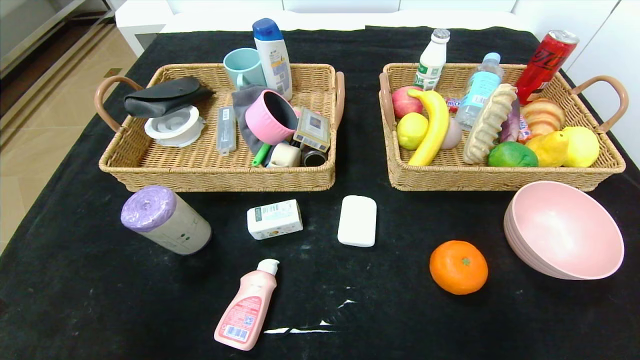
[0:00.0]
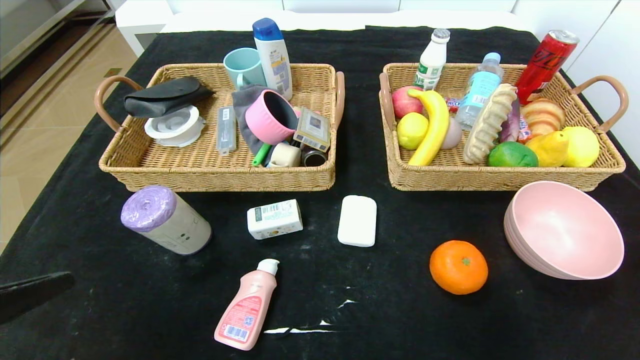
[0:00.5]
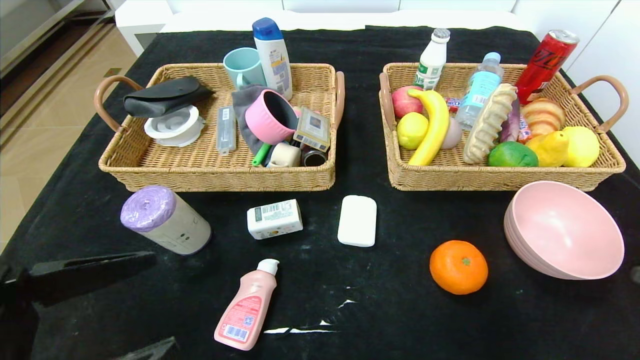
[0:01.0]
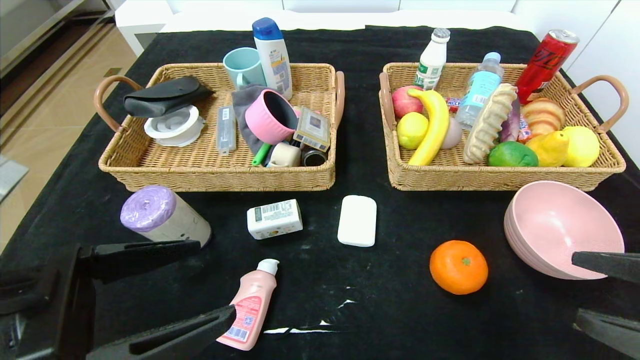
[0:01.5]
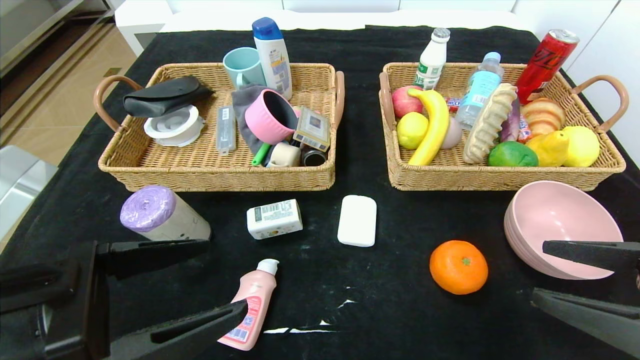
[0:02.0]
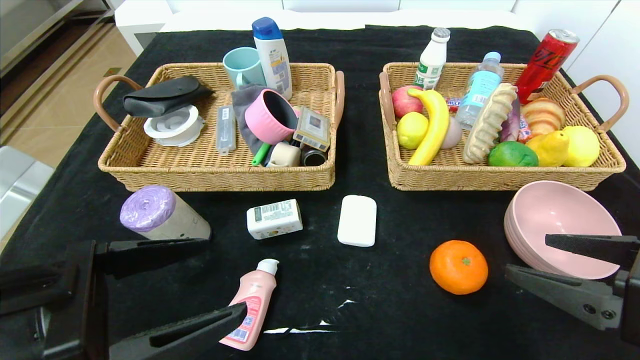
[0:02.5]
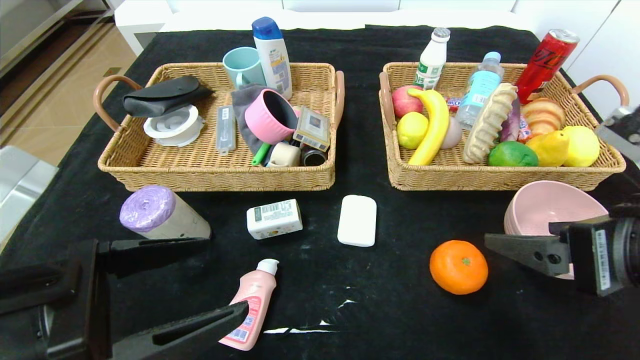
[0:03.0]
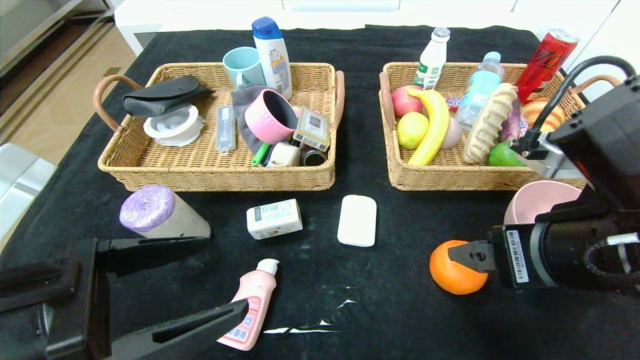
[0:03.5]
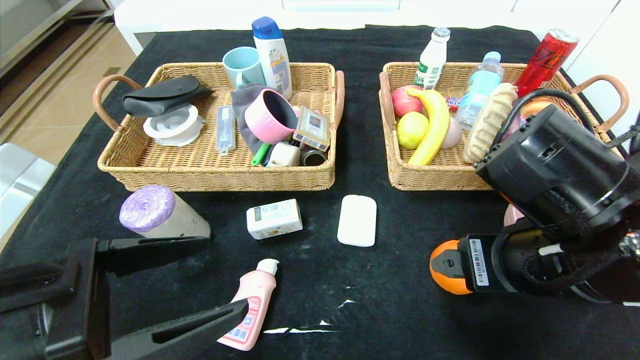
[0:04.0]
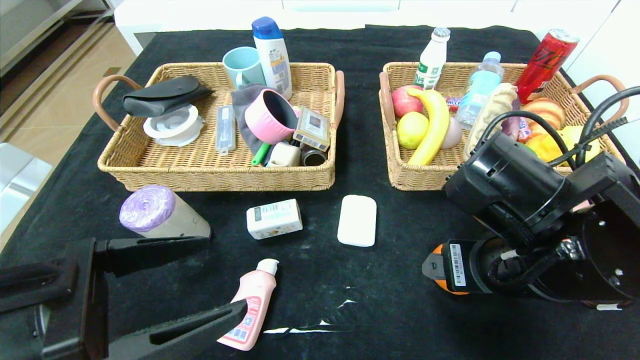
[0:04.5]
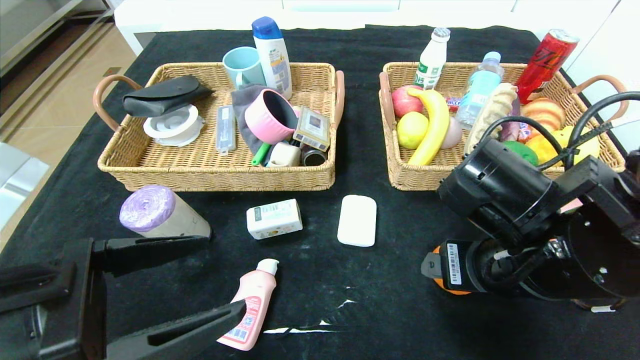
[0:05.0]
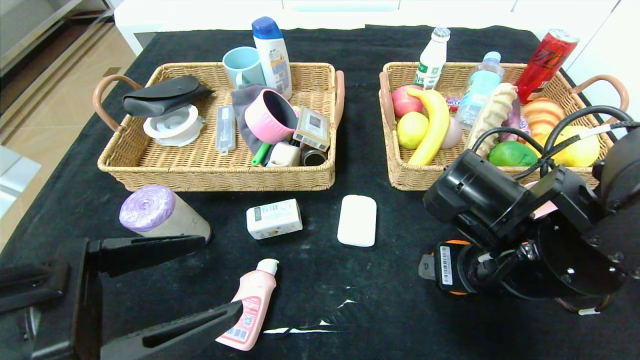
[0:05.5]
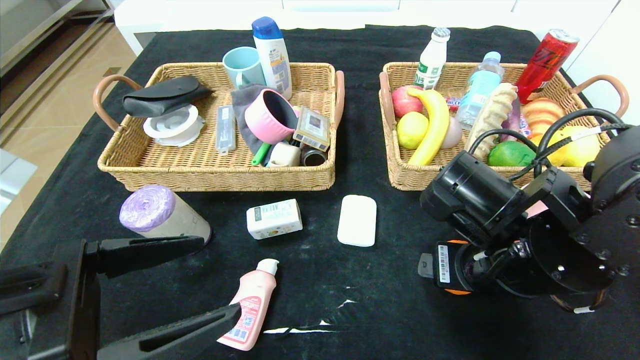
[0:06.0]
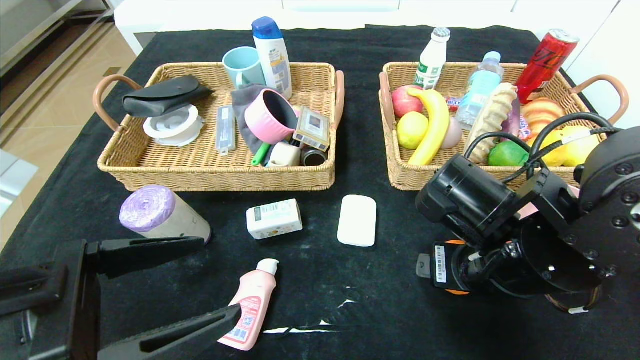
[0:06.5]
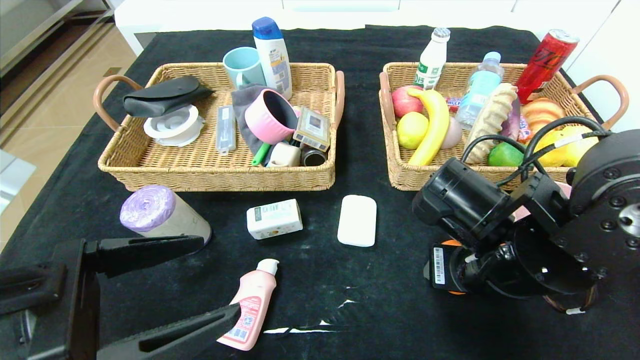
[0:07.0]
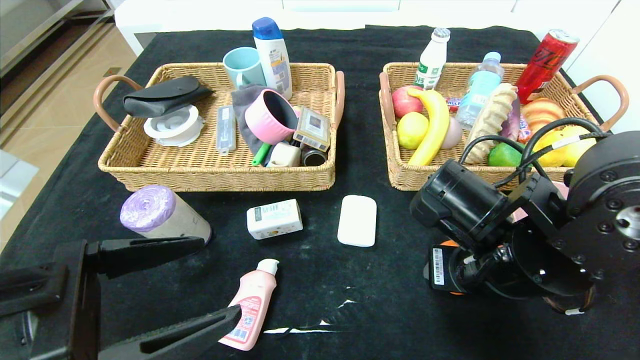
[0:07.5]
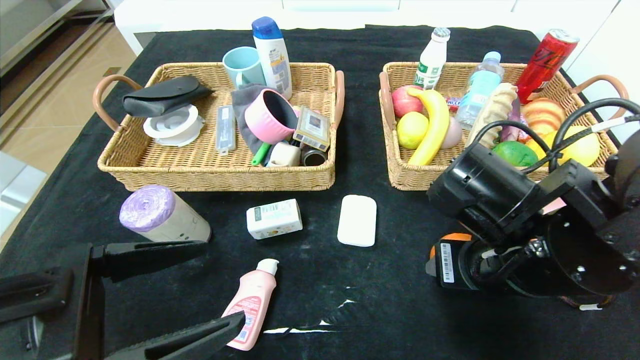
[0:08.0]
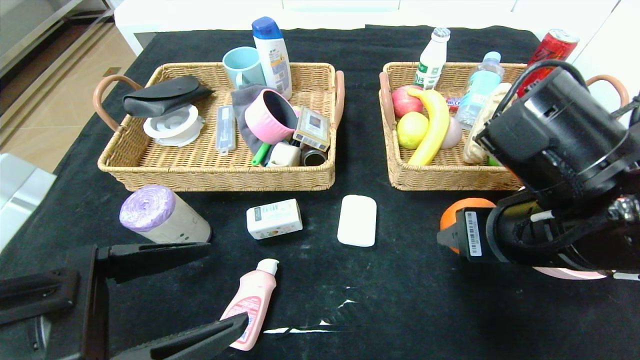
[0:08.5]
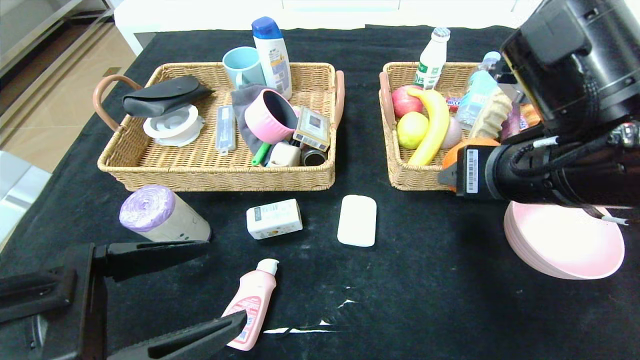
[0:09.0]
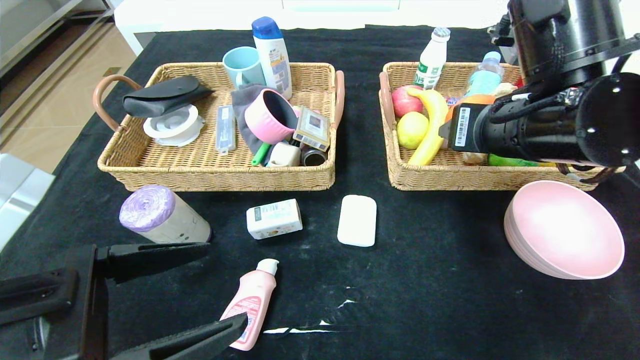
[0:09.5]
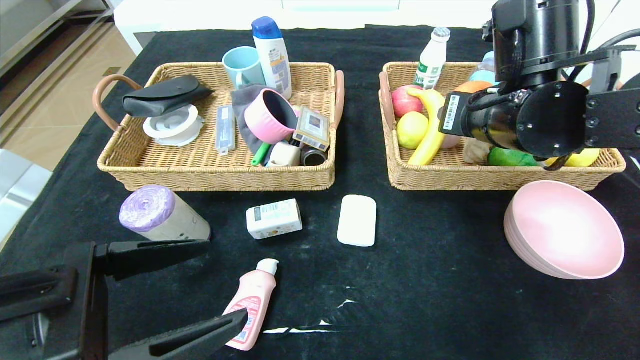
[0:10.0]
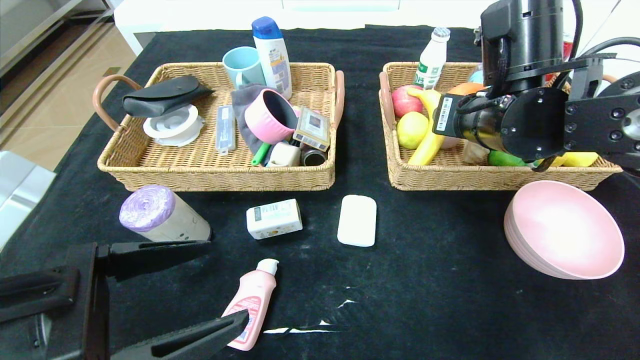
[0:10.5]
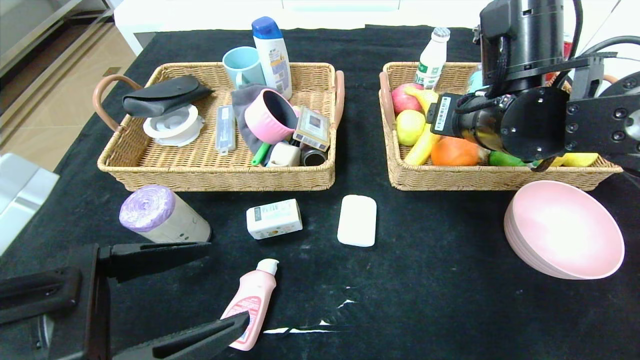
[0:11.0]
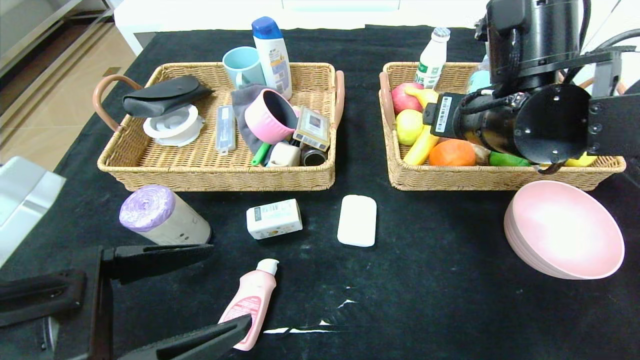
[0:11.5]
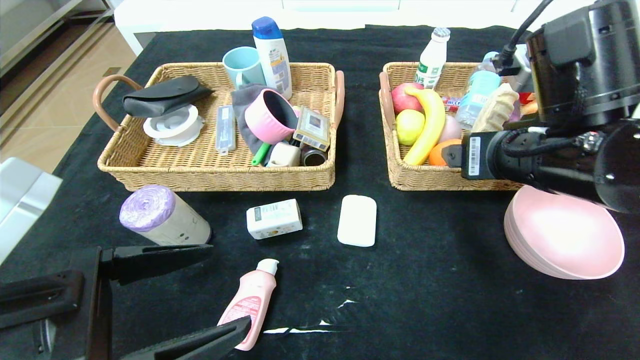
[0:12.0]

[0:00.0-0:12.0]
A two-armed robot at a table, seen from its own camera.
Step, 0:00.0 to 0:11.0: Grasp the orange and put it in the right basket.
0:00.0 to 0:02.0: The right gripper moves forward and to the left, some 15 cm, while the left gripper shifts about 10 cm forward and to the right.
0:02.0 to 0:04.0: The right gripper shifts roughly 15 cm to the left and forward.
0:04.0 to 0:06.0: The right gripper changes place by roughly 5 cm.
0:06.0 to 0:08.0: The grippers make only small movements.
0:08.0 to 0:10.0: The right gripper heads forward and upward, covering some 15 cm.
0:10.0 to 0:12.0: The right gripper heads backward, covering roughly 5 cm.

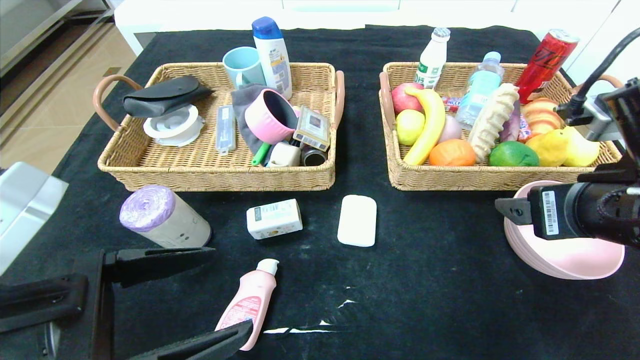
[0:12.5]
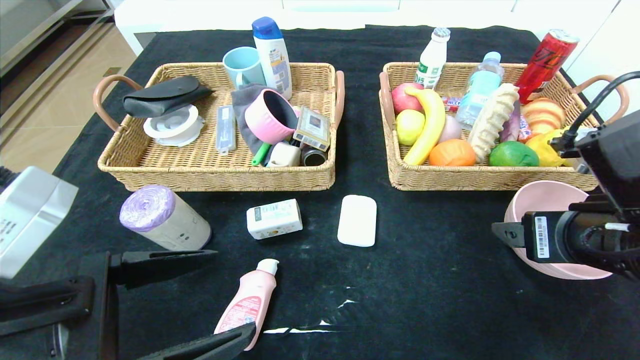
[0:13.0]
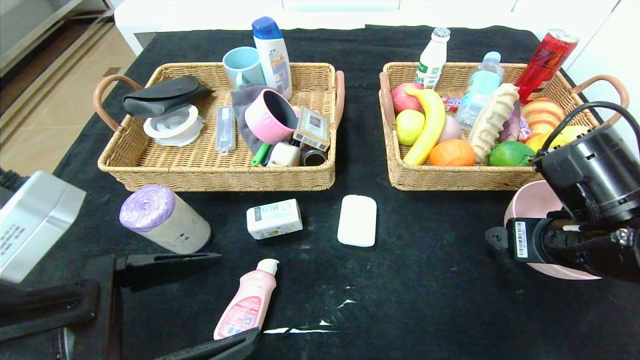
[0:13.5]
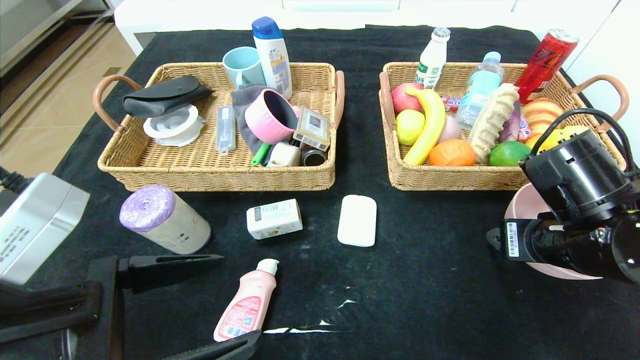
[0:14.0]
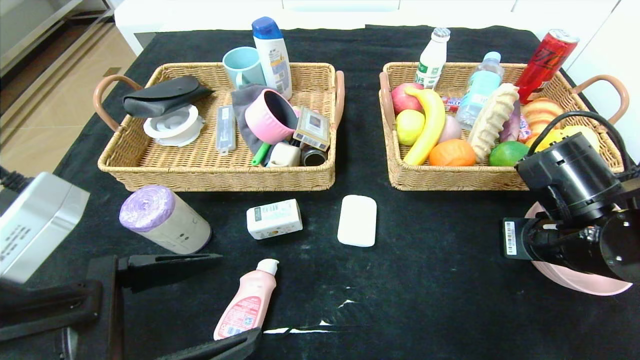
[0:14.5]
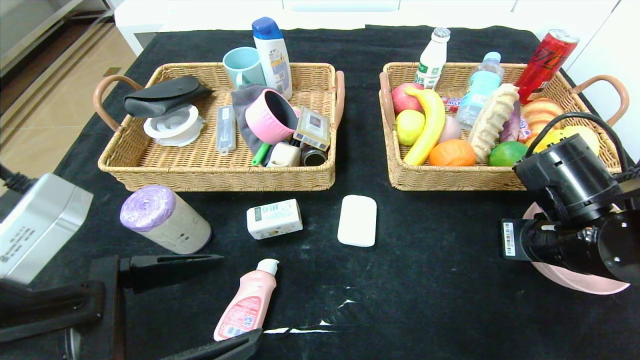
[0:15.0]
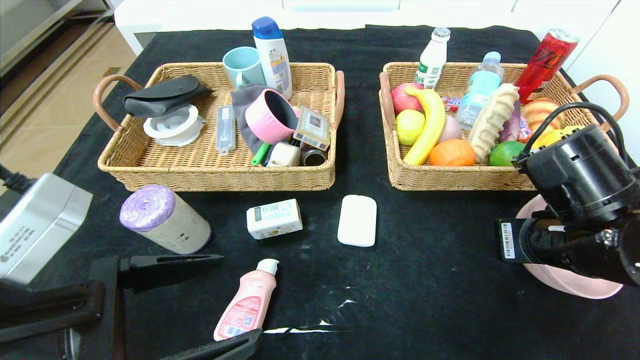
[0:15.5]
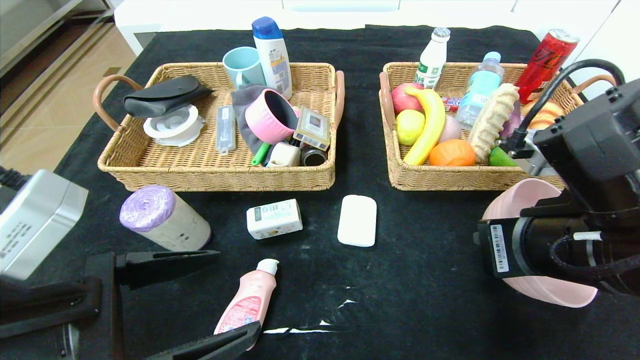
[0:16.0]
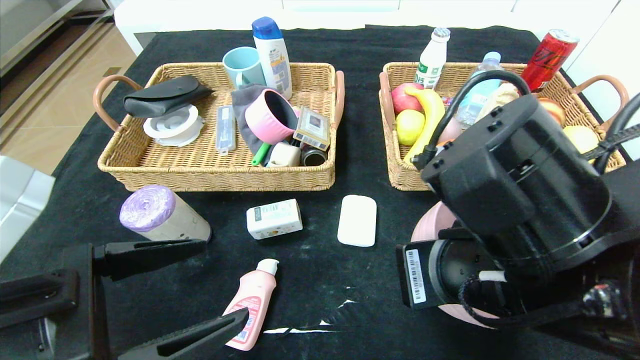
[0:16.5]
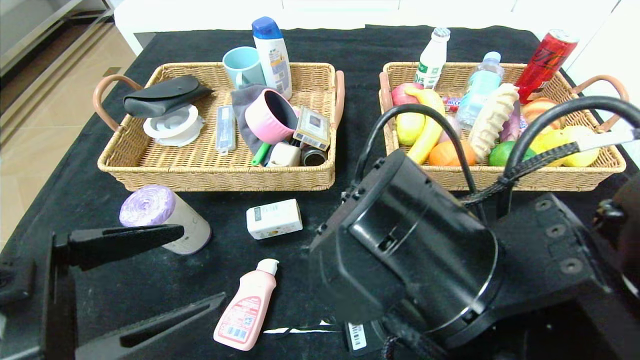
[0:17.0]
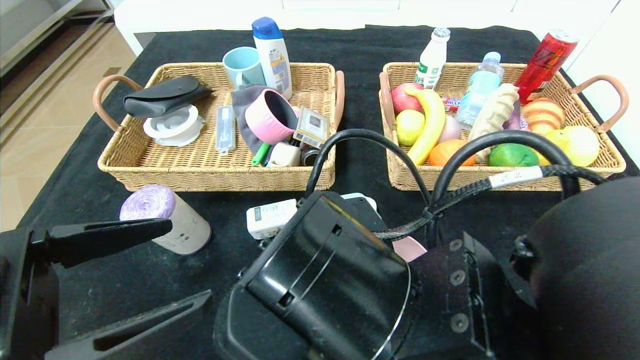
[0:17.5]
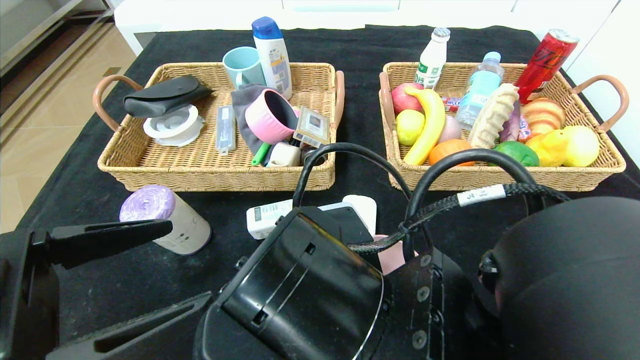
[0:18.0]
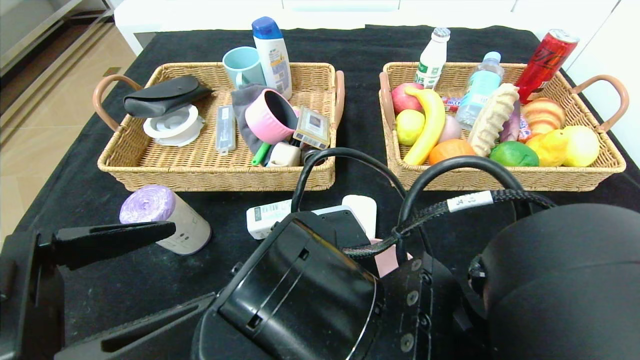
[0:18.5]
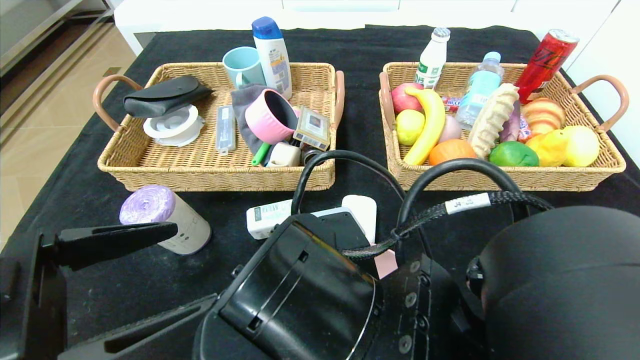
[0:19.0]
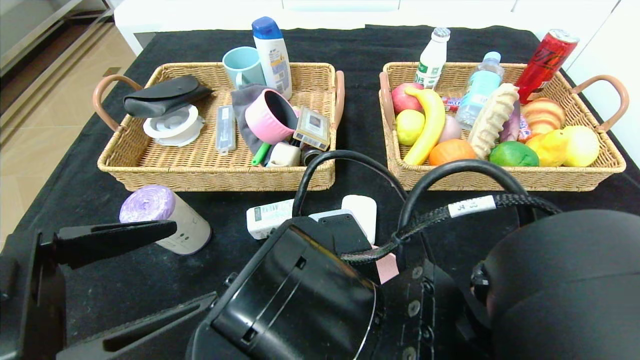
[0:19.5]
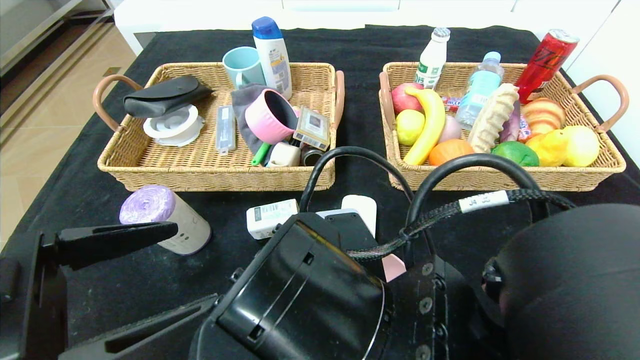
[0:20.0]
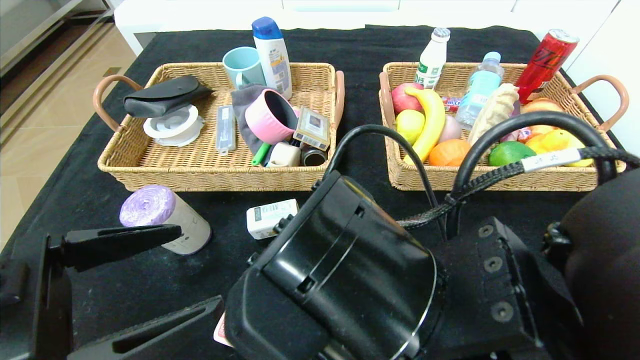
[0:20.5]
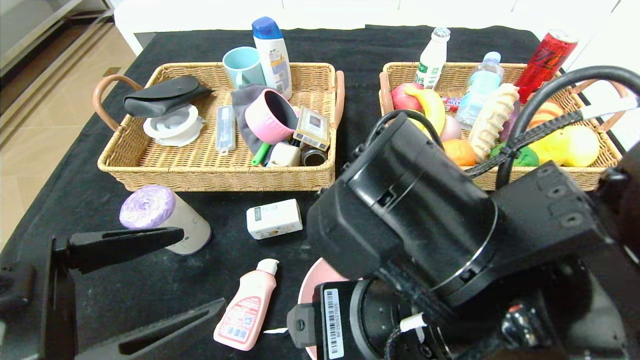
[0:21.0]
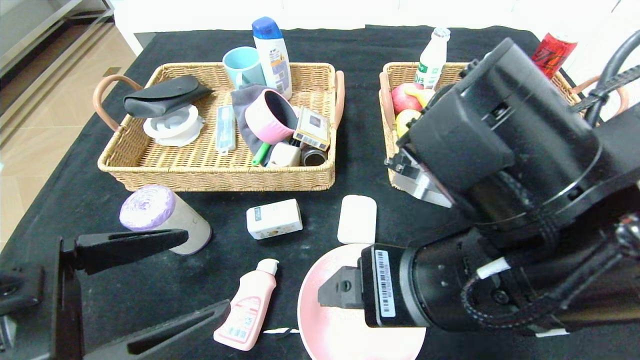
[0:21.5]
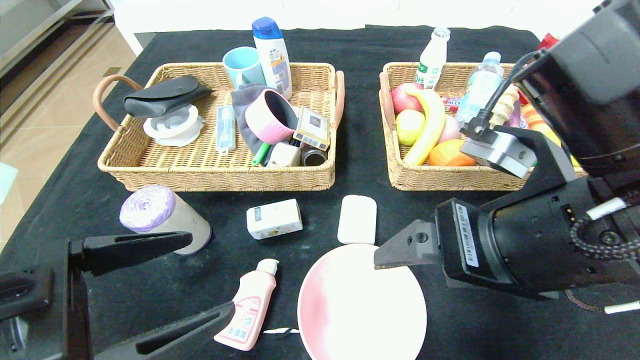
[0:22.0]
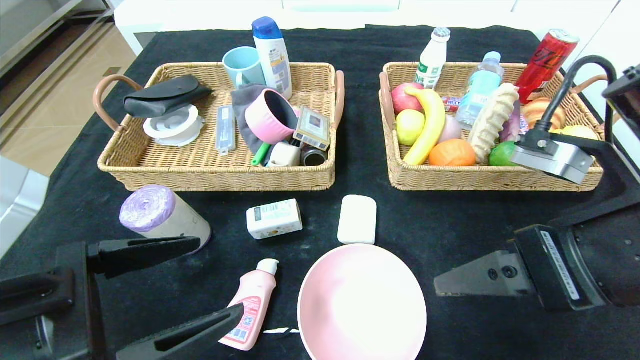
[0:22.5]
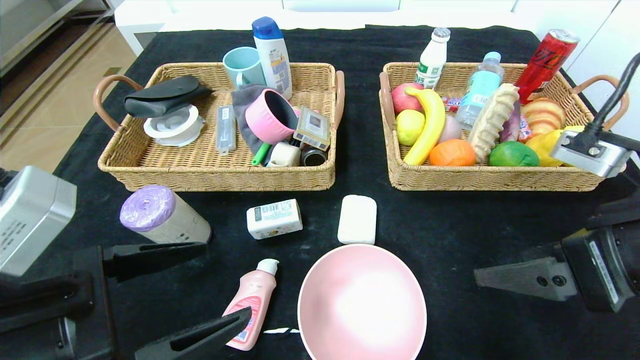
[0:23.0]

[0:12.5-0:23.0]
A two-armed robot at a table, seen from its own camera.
Step, 0:12.5 to 0:19.5: Place the pink bowl in the center of the table.
0:12.5 to 0:14.5: The right gripper moves downward, about 5 cm, and closes.
0:14.5 to 0:16.5: The right gripper is displaced to the left and backward by some 15 cm.
0:16.5 to 0:19.0: The right gripper shifts some 10 cm to the left, and opens up.
0:19.0 to 0:21.0: The right gripper moves some 5 cm.
0:21.0 to 0:23.0: The right gripper shifts some 20 cm to the right.
